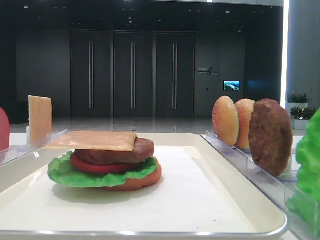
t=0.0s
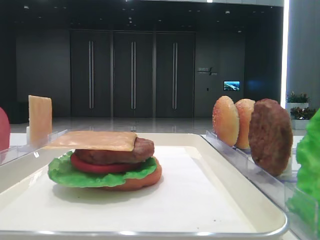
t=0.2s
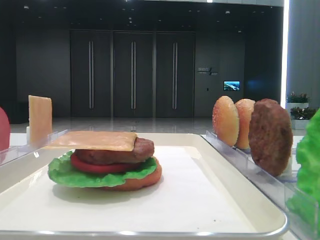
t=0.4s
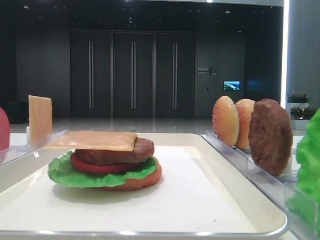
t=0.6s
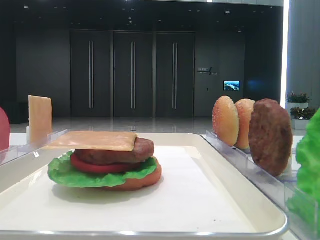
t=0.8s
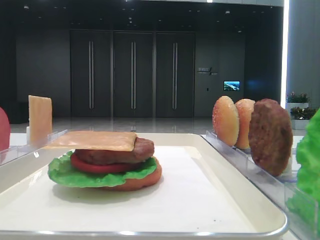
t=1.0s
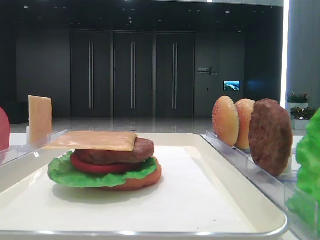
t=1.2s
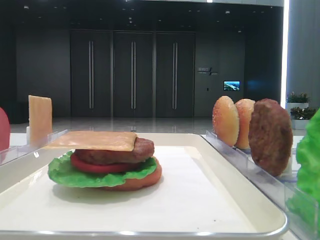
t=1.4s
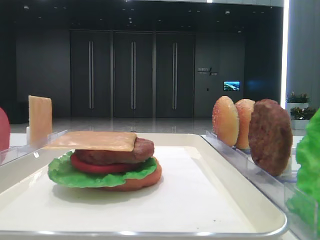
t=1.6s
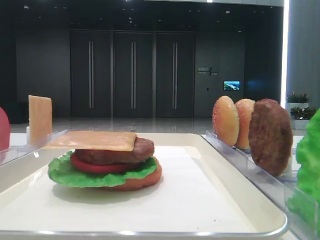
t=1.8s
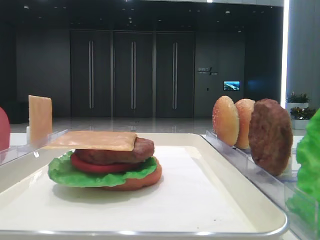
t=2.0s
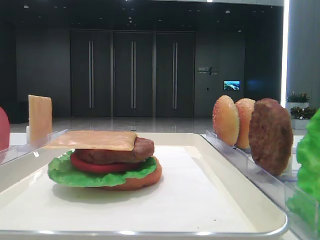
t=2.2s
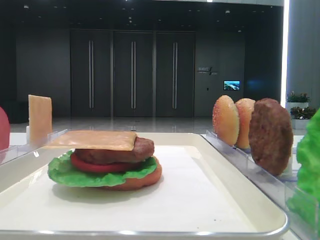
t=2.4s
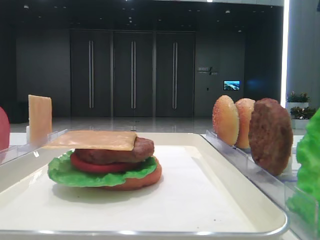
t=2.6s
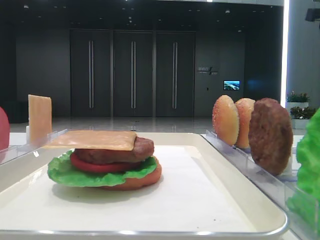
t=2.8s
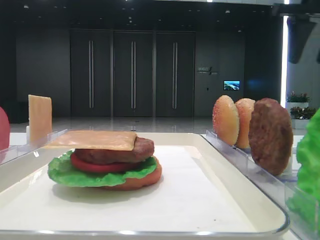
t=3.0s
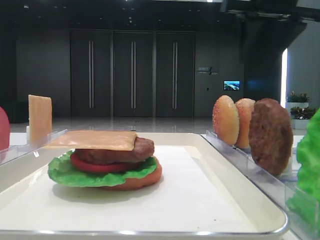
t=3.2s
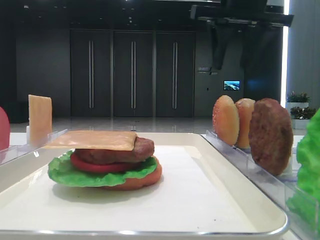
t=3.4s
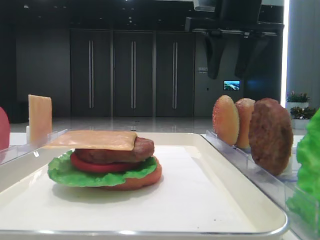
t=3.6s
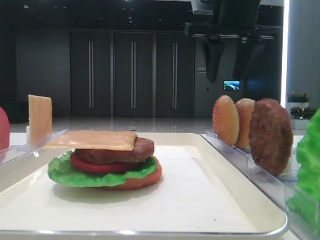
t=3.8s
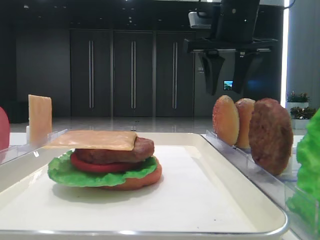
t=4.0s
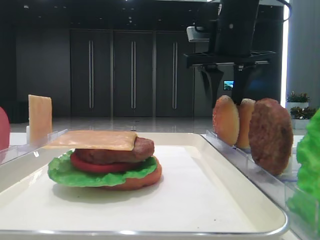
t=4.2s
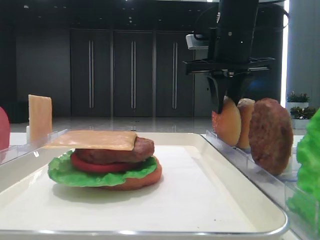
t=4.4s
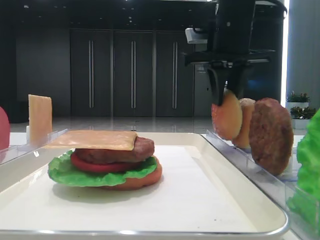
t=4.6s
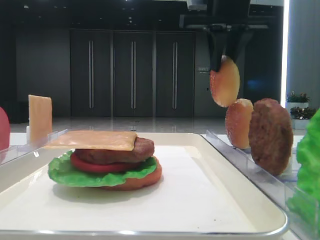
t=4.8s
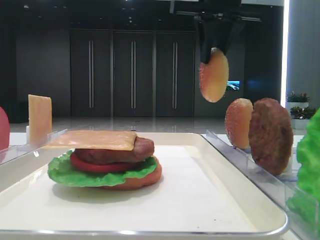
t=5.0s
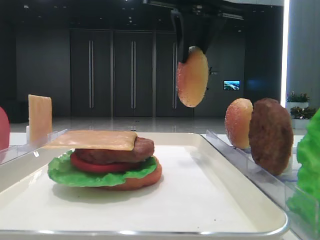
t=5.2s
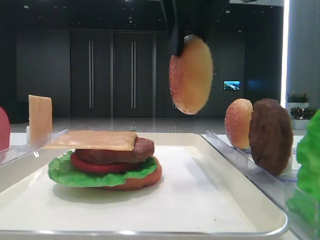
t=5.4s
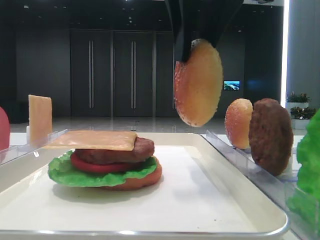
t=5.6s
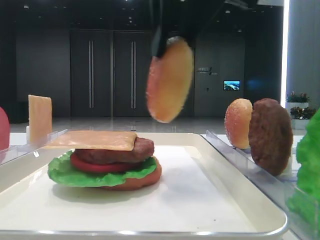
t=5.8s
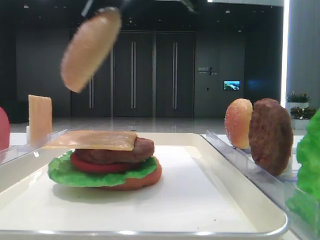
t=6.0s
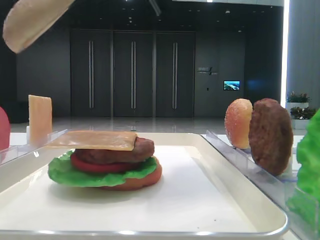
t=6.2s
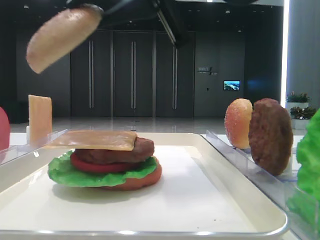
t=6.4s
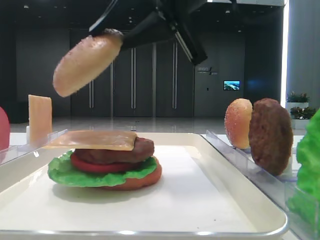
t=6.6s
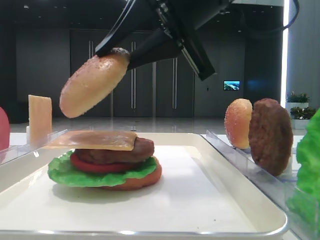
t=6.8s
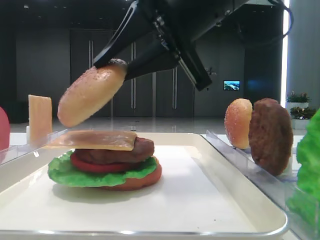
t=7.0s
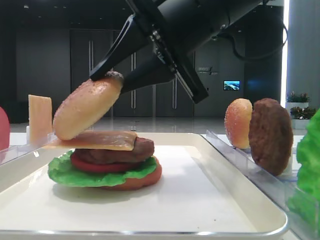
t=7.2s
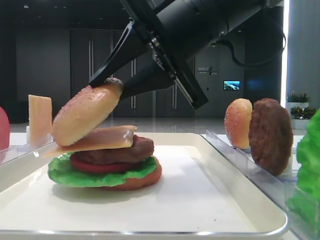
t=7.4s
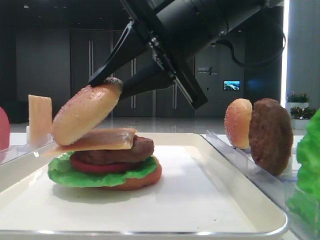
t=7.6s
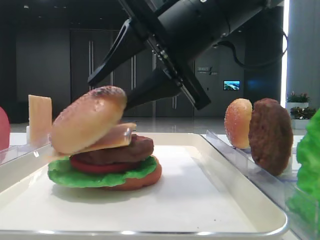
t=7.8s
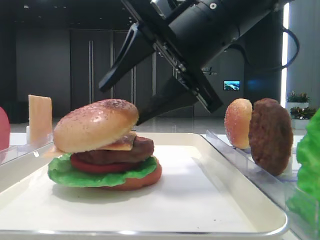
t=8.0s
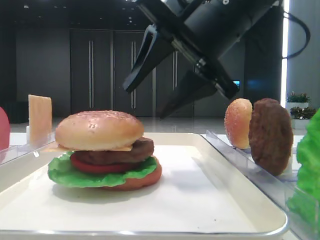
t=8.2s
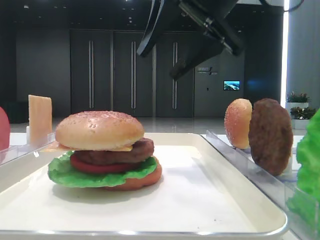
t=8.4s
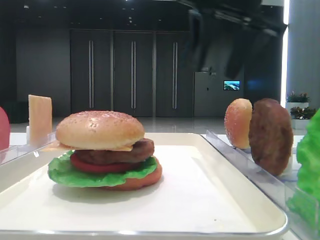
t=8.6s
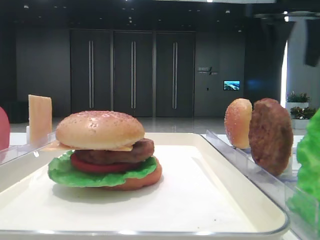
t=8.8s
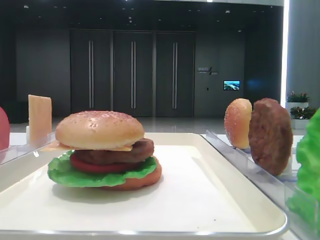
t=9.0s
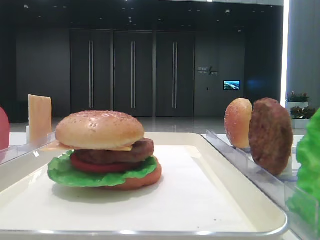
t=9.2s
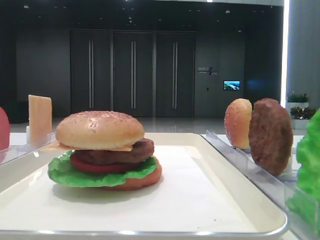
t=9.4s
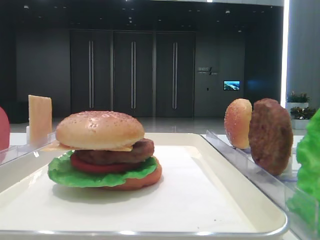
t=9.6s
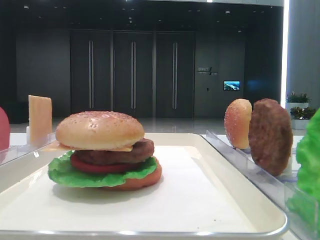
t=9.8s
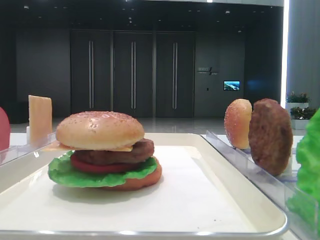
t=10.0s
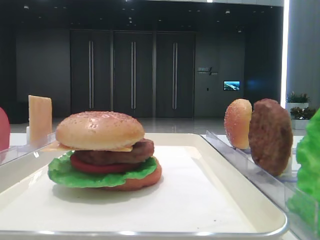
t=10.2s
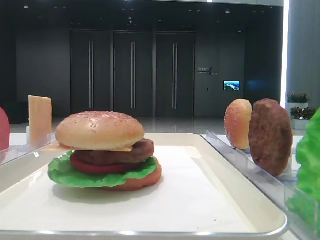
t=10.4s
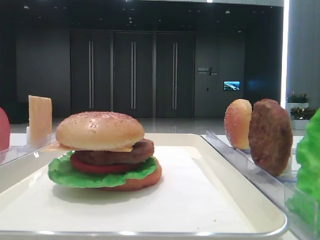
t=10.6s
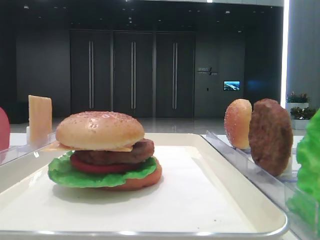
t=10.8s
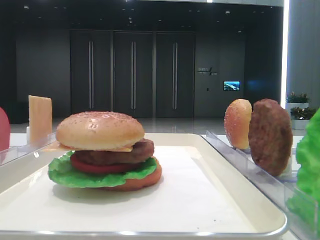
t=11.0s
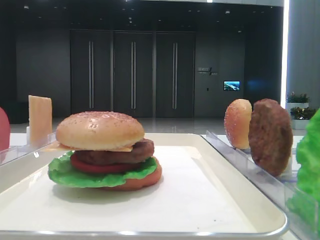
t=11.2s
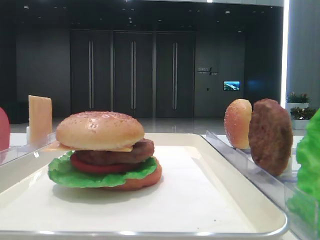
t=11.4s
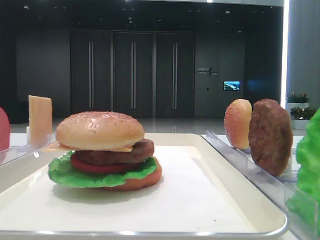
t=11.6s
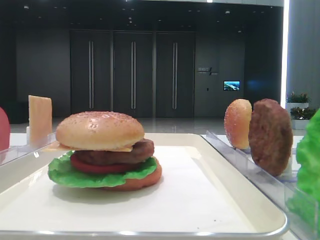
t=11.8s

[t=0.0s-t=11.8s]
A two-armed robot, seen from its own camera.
Step, t=0.0s to t=4.2s: Pick up the top bread slice with the right hand.
Step, t=4.6s to t=8.0s: Place the top bread slice on the cheese with the right hand.
t=1.4s to t=3.0s: The right gripper shifts roughly 40 cm forward.
t=3.0s to t=4.4s: The right gripper heads to the left and downward, covering about 15 cm, and closes its fingers.
t=4.4s to t=6.0s: The right gripper moves backward, to the left and upward, about 20 cm.
t=6.0s to t=7.4s: The right gripper goes approximately 10 cm downward.
t=7.4s to t=8.8s: The right gripper travels to the right, upward and forward by roughly 25 cm, and opens up.
t=8.8s to t=10.4s: The right gripper travels backward by approximately 35 cm.

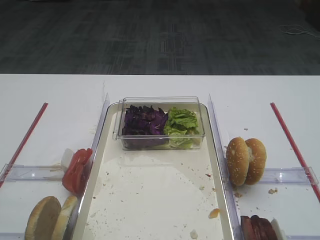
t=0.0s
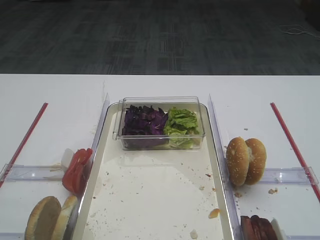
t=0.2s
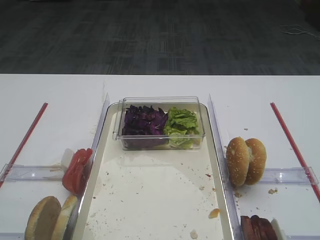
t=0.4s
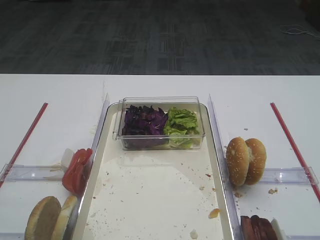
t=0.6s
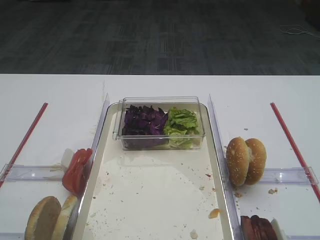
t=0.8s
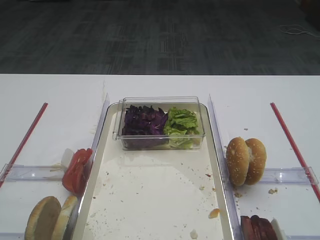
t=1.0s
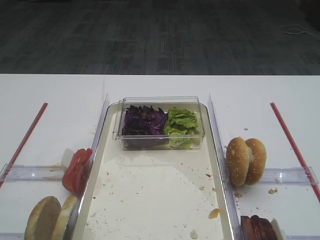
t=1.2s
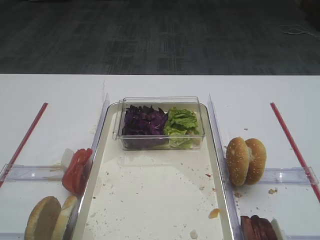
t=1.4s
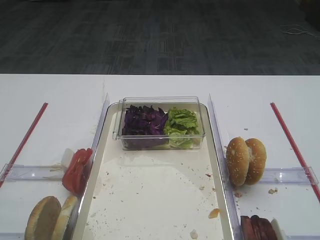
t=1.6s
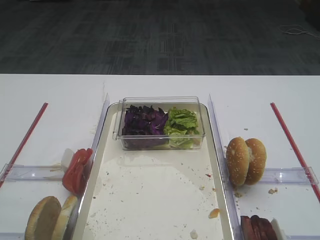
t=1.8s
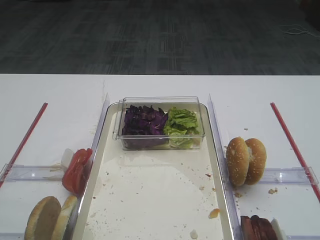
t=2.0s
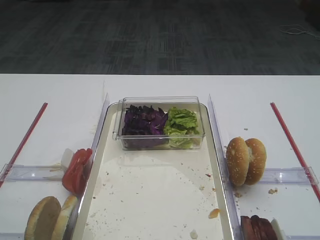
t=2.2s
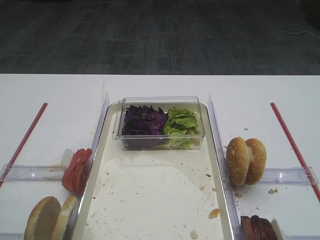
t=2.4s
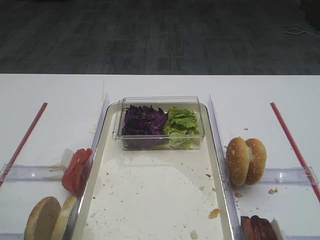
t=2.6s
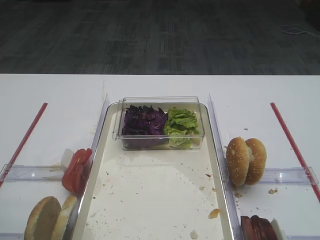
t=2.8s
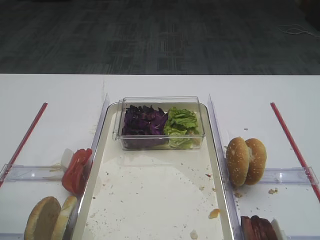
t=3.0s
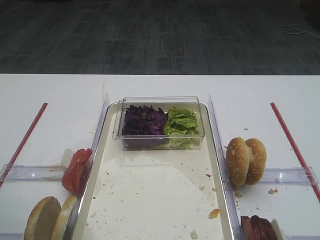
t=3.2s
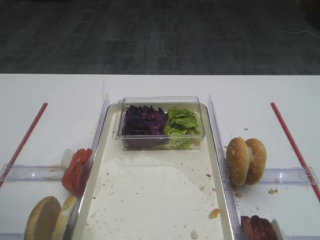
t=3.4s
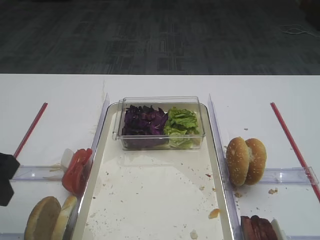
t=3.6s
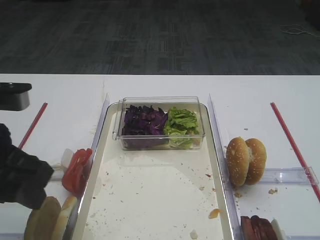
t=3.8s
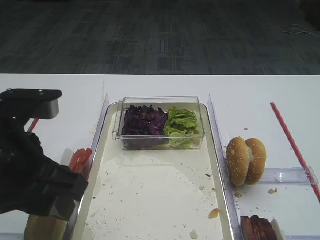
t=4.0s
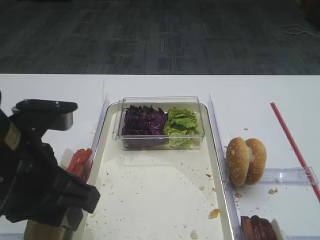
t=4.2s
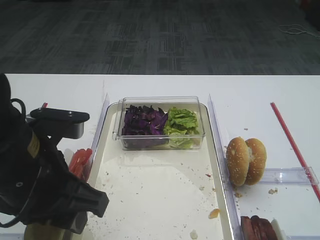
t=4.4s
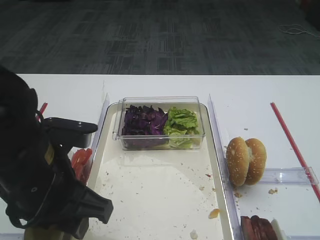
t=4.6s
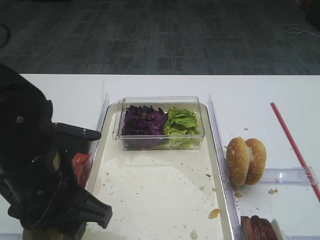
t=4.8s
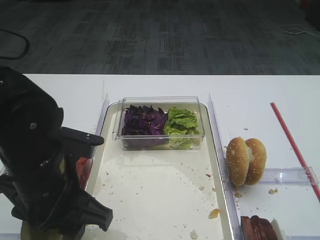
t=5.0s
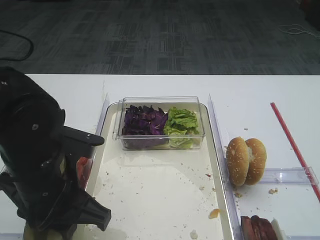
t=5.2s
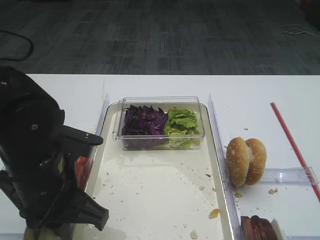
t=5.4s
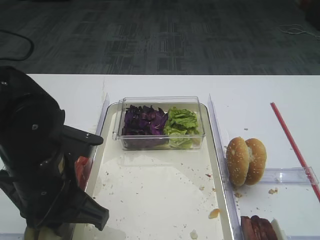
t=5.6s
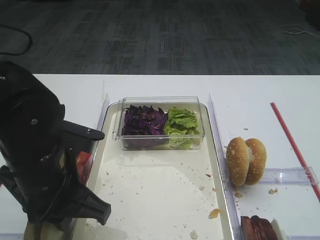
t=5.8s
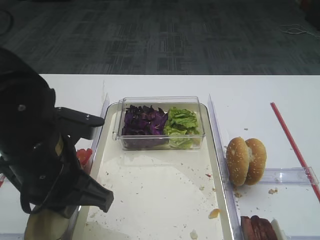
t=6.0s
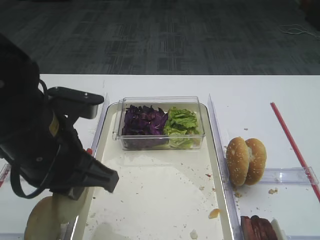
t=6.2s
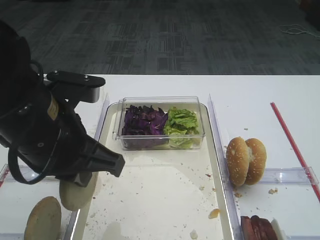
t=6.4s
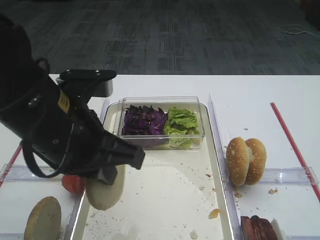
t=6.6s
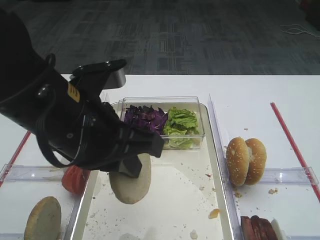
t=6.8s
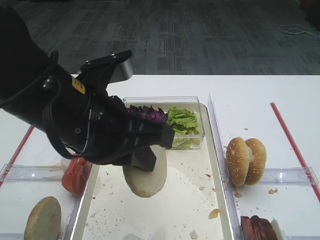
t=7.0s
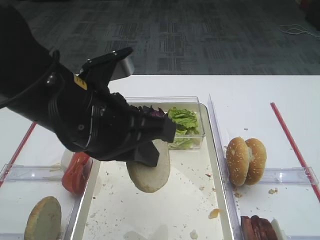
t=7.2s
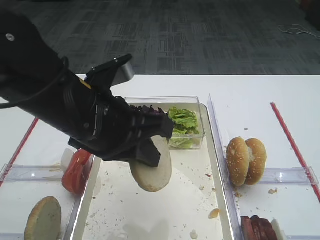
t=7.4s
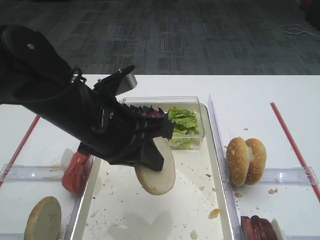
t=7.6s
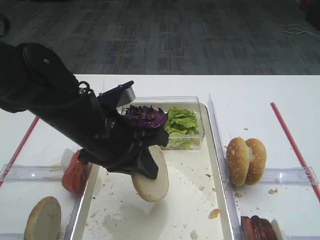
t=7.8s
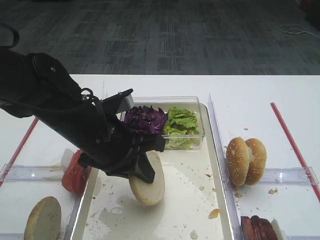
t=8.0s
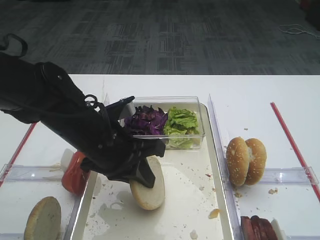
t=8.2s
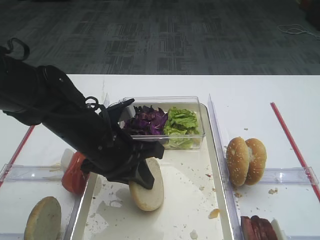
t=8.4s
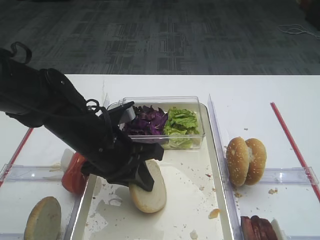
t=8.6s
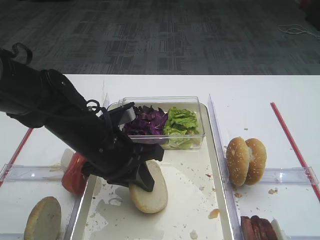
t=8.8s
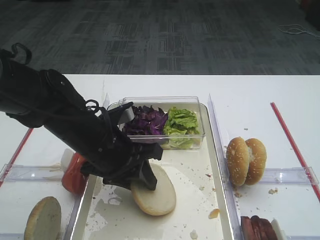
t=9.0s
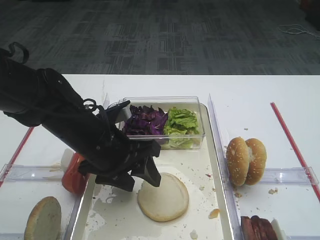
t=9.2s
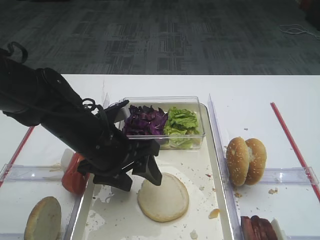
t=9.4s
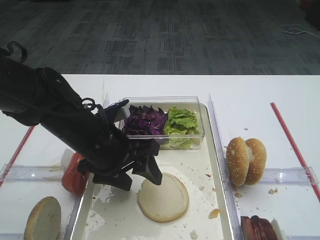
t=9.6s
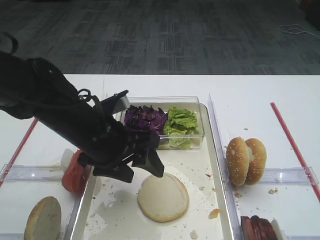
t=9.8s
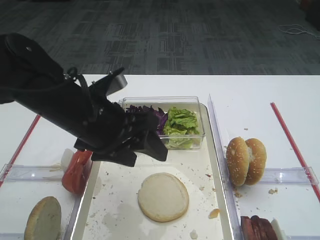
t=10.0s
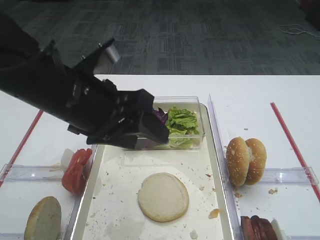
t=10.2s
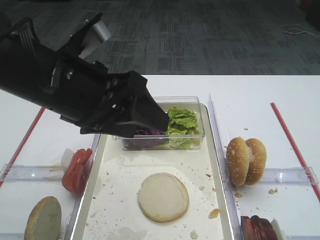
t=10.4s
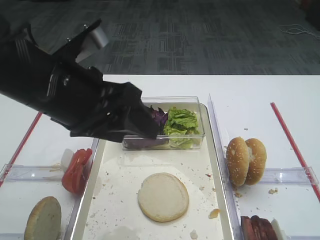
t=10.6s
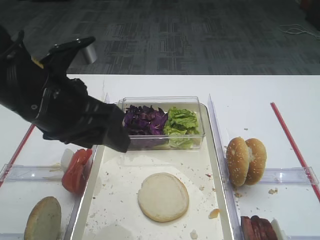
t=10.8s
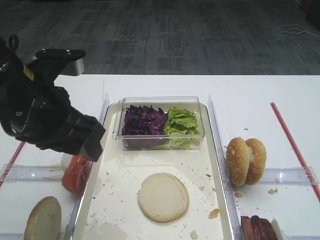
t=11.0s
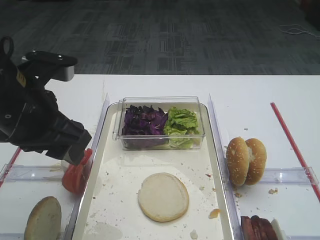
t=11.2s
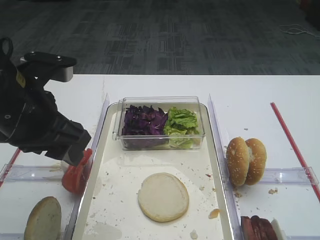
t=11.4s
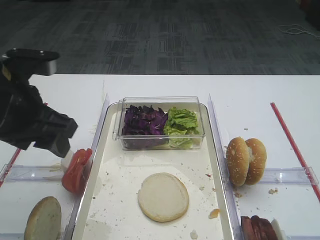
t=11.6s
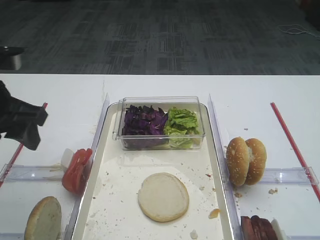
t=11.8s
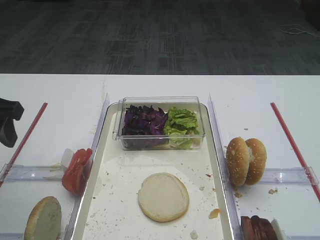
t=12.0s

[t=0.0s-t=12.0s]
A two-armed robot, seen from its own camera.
Step, t=0.0s to t=6.2s: Pick up the bread slice with the left gripper.
Step, t=6.4s to t=9.8s: Place the bread slice on the tray with the left gripper.
t=3.0s to t=4.4s: The left gripper goes roughly 15 cm to the right.
t=4.4s to t=6.0s: The left gripper closes.
t=6.0s to t=7.6s: The left gripper ends up roughly 5 cm from where it was.
t=7.6s to t=9.0s: The left gripper is displaced downward by approximately 5 cm, and opens.
t=9.0s to t=10.4s: The left gripper heads upward, covering about 15 cm, and opens its fingers.
t=10.4s to t=12.0s: The left gripper shifts approximately 15 cm to the left.
